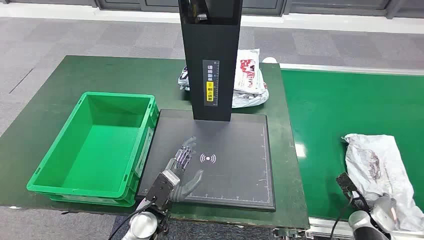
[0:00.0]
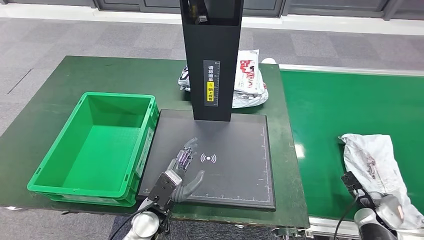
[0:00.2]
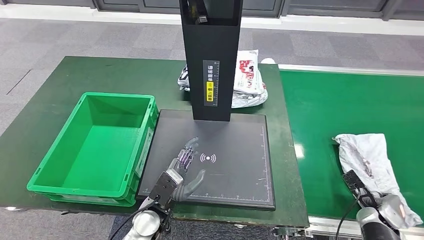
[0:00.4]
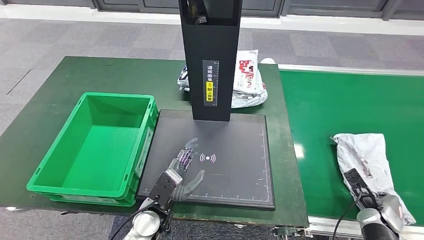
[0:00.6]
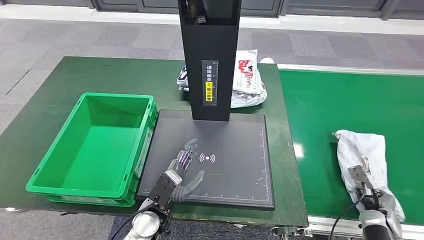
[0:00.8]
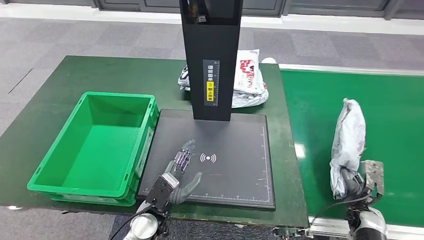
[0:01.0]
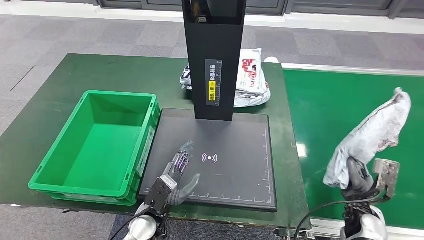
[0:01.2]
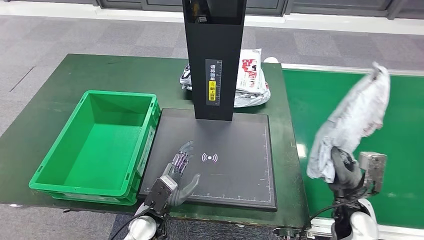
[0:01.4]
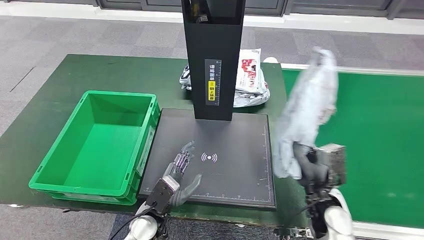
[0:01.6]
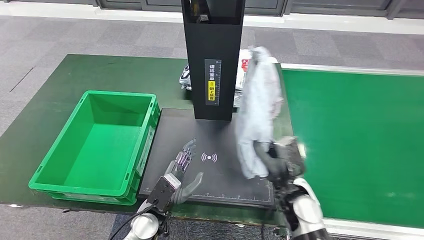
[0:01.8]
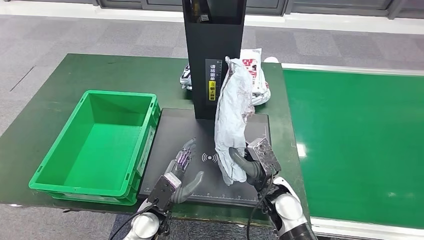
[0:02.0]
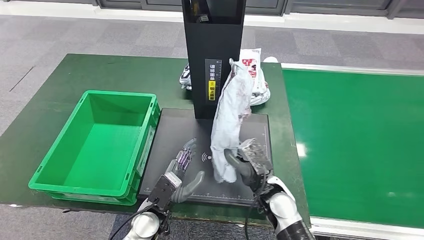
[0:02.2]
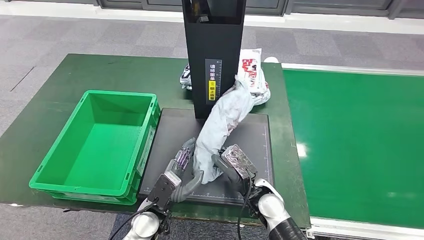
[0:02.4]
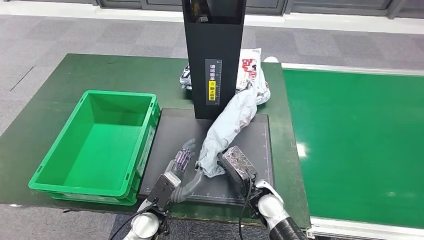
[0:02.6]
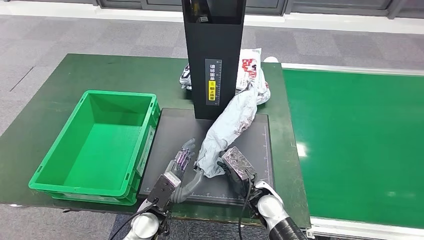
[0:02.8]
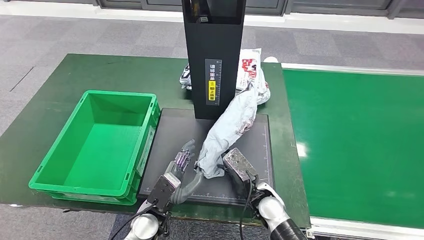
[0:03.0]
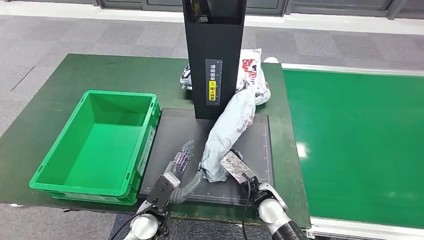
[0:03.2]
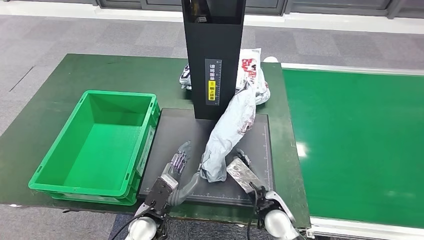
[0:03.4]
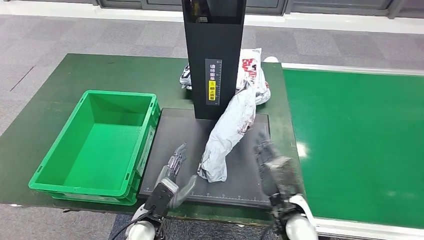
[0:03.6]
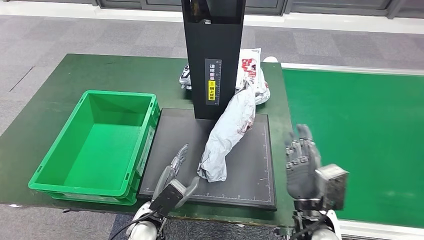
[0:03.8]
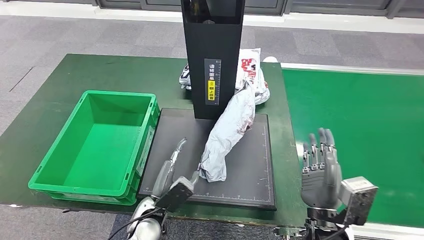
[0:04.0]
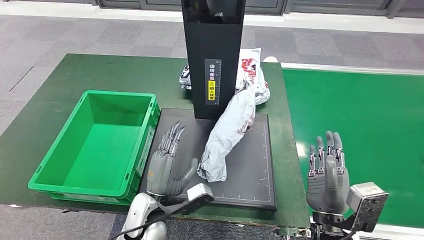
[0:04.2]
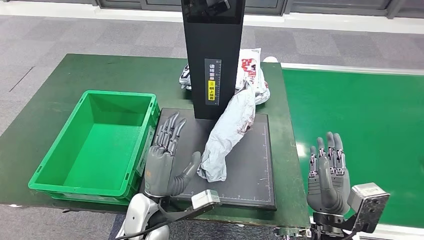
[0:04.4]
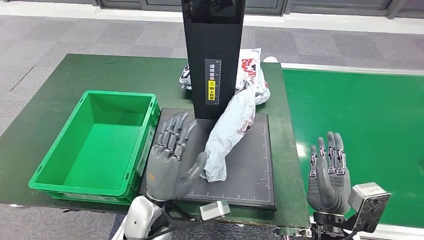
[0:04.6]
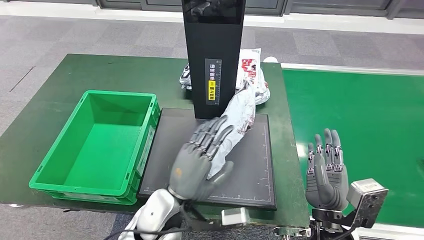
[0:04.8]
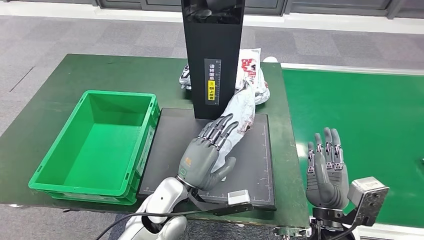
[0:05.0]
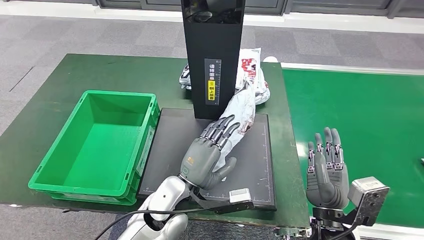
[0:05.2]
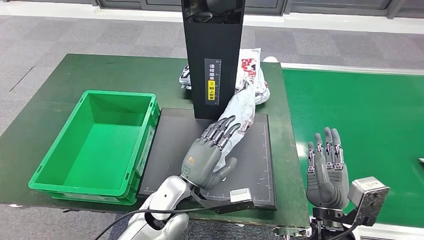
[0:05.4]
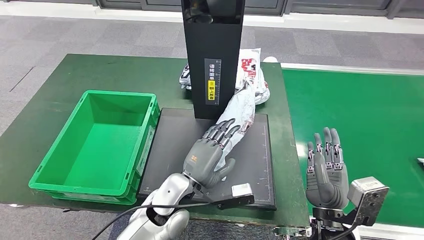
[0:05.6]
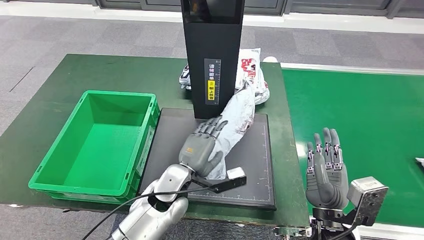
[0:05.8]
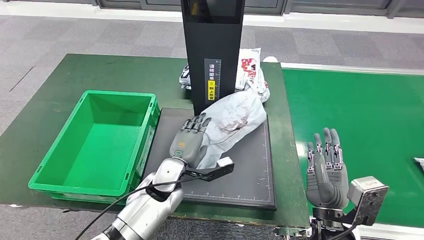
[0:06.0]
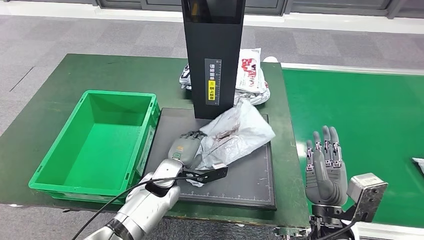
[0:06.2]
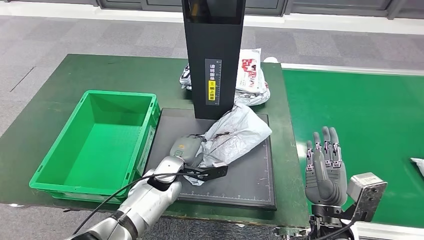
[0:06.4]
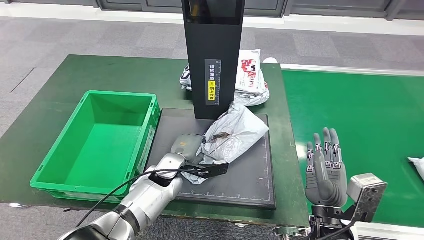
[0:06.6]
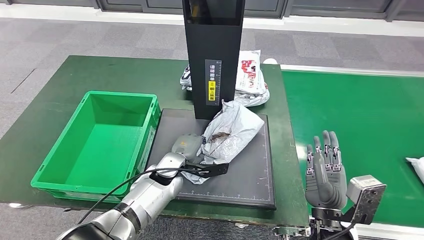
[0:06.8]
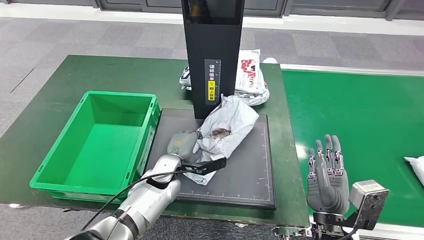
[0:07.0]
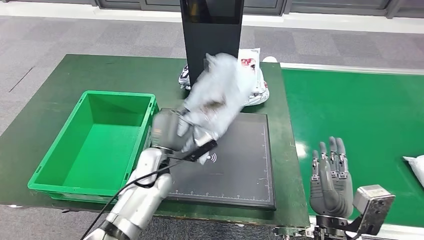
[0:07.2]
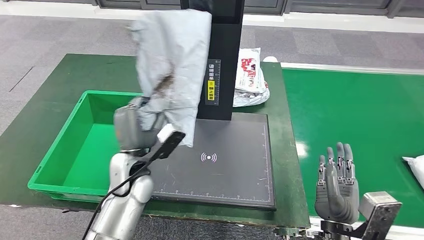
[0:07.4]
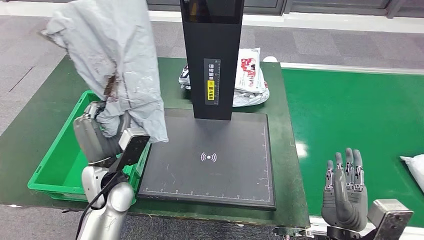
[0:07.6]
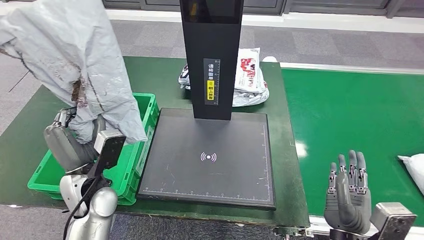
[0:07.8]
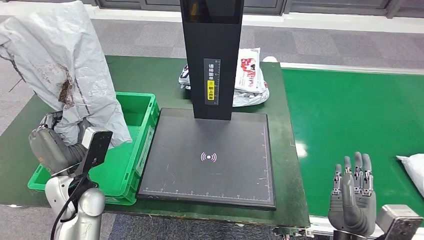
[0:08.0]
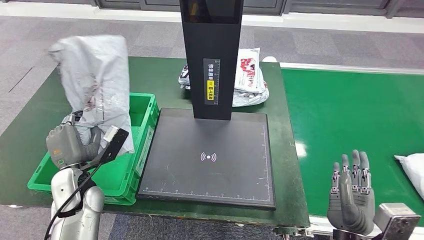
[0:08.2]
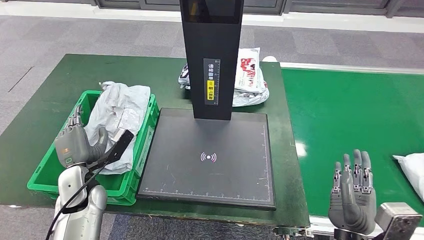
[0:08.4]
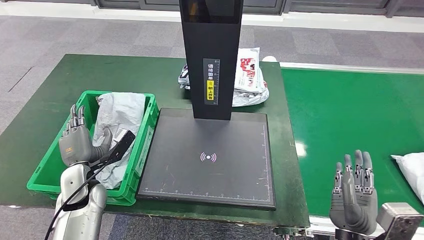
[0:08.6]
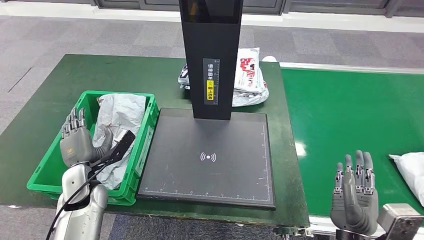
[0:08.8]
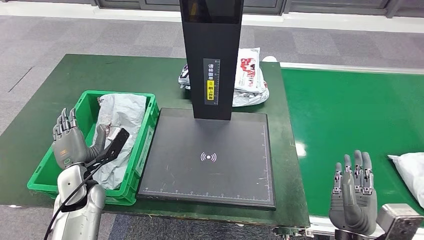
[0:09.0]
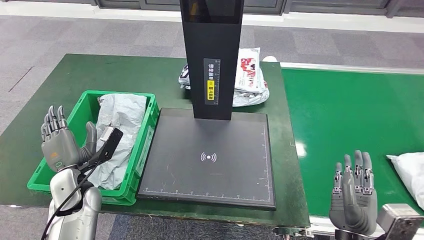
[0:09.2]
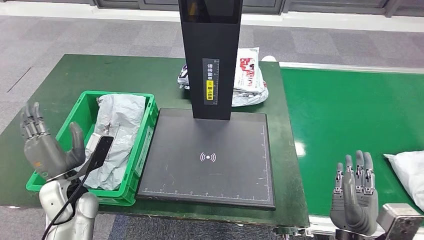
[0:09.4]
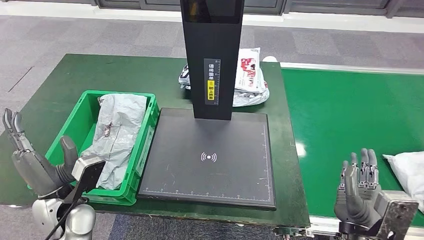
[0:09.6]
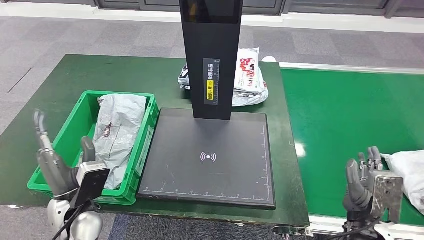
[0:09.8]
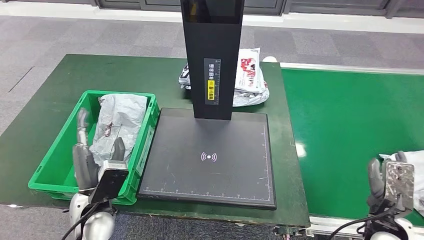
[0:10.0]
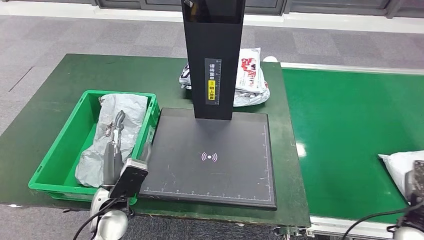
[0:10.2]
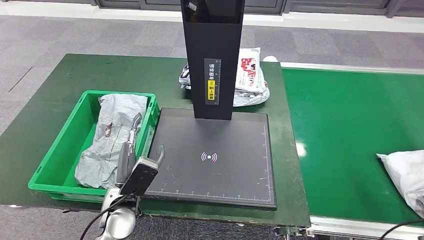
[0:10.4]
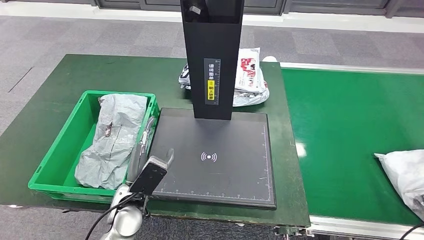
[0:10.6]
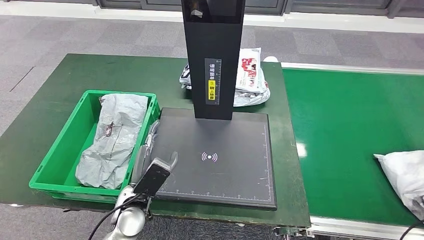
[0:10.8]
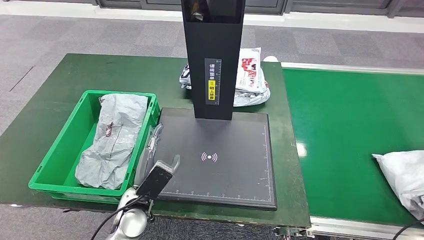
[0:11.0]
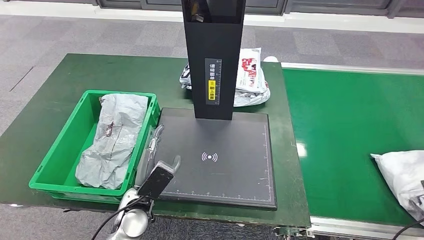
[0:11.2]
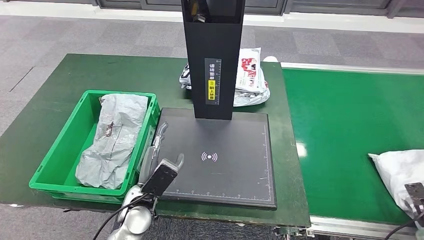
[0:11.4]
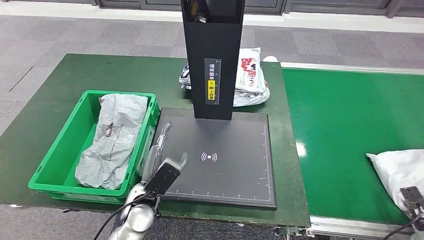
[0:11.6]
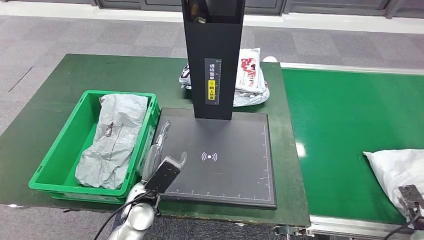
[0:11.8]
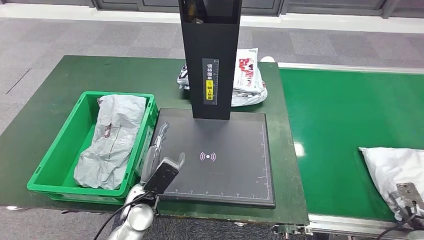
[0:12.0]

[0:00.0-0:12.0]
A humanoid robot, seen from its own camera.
Step, 0:00.0 to 0:01.2: Take the parcel off the conveyor belt.
Step, 0:01.4 to 0:03.8: Place the parcel onto the inbound machine.
Step, 0:04.0 to 0:07.4: Pick up the parcel from the inbound machine.
Step, 0:07.6 to 0:09.2: Put the parcel inside the courier box.
0:01.6 to 0:03.0: The right hand goes approximately 15 cm to the left.
0:03.0 to 0:04.4: The right hand goes some 15 cm to the right, upward and backward. Meanwhile the left hand heads upward, covering approximately 10 cm.
0:04.4 to 0:06.0: The left hand shifts about 10 cm forward.
0:09.0 to 0:10.4: The left hand travels to the right by about 10 cm. Meanwhile the right hand is displaced to the right by some 25 cm.
0:10.4 to 0:12.0: The right hand goes some 10 cm downward; the left hand changes place by about 5 cm.

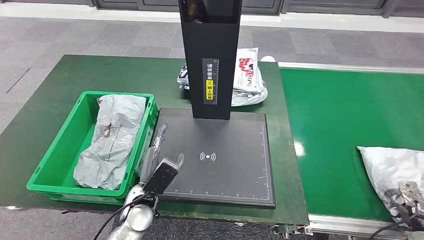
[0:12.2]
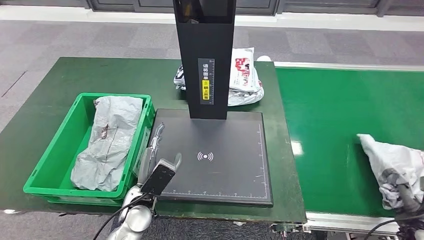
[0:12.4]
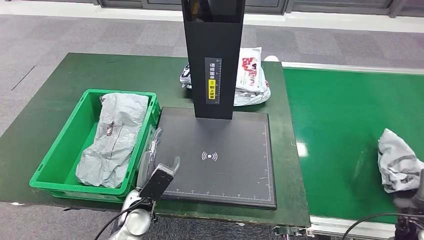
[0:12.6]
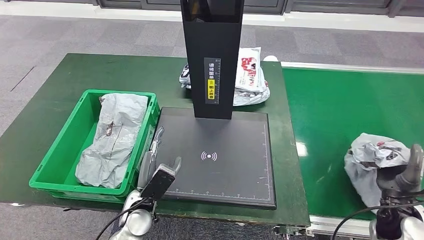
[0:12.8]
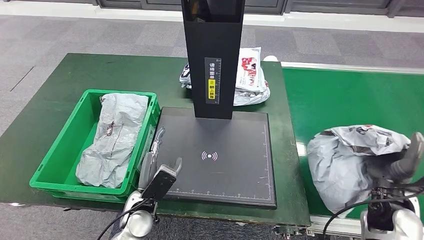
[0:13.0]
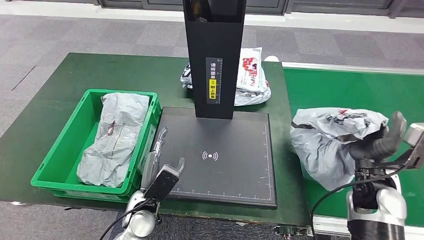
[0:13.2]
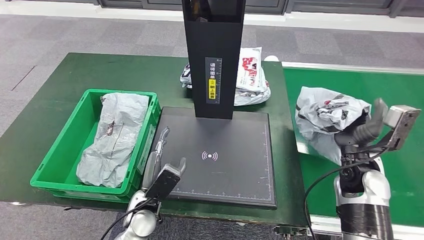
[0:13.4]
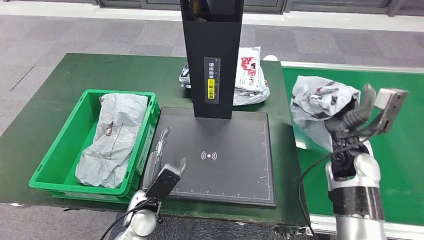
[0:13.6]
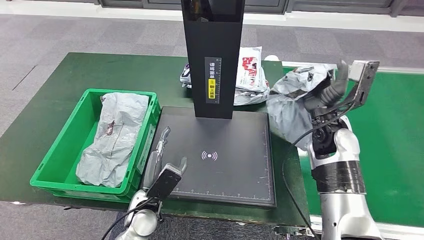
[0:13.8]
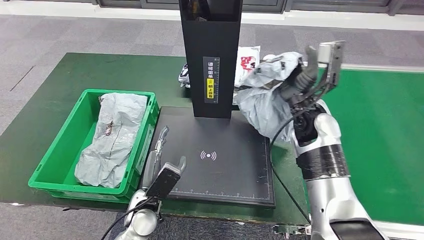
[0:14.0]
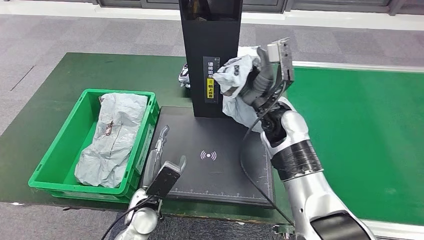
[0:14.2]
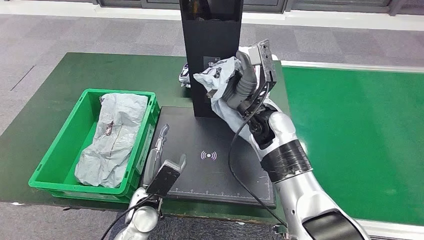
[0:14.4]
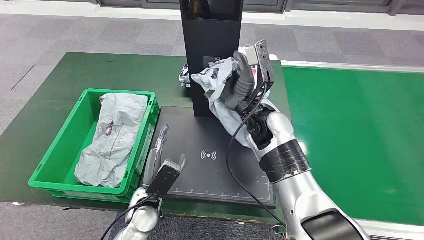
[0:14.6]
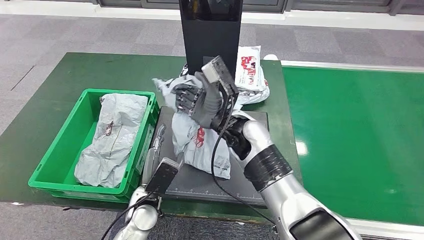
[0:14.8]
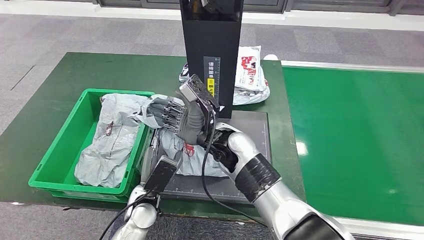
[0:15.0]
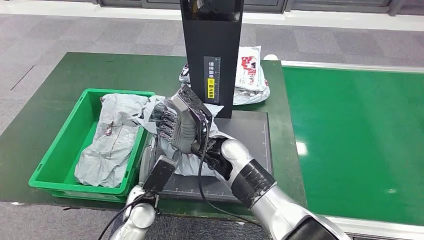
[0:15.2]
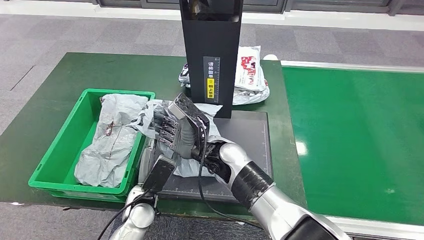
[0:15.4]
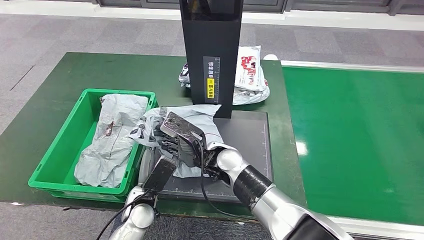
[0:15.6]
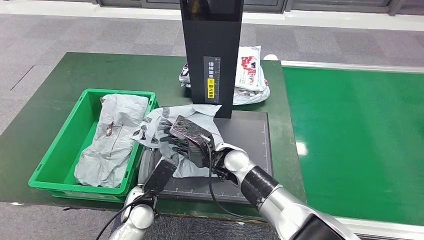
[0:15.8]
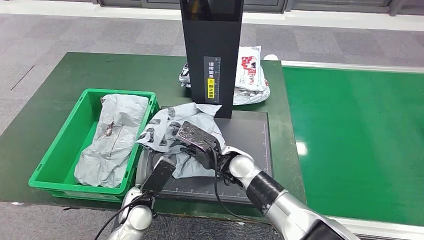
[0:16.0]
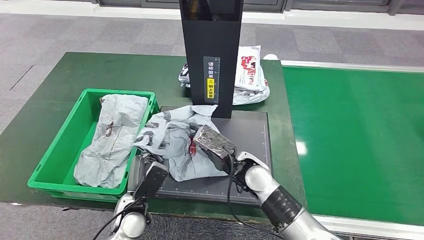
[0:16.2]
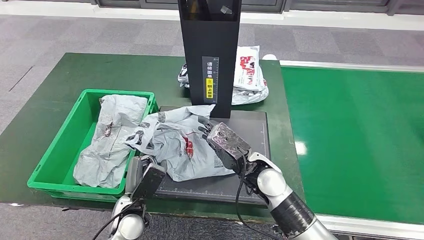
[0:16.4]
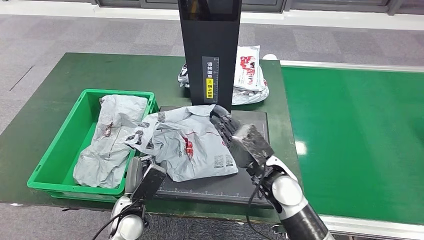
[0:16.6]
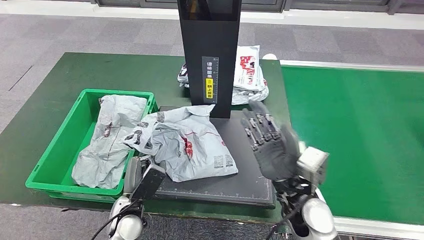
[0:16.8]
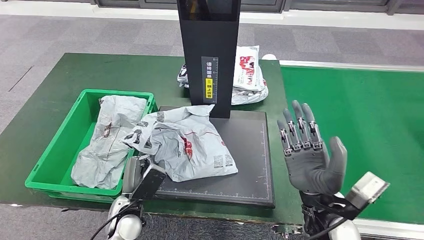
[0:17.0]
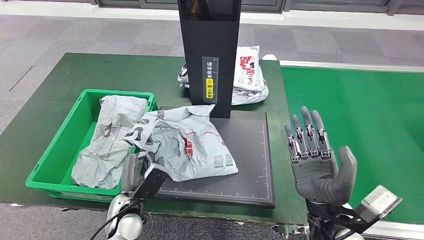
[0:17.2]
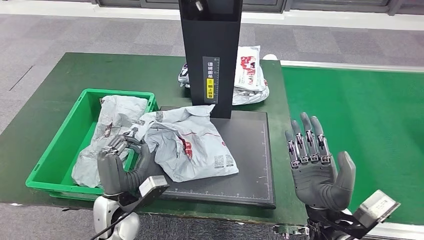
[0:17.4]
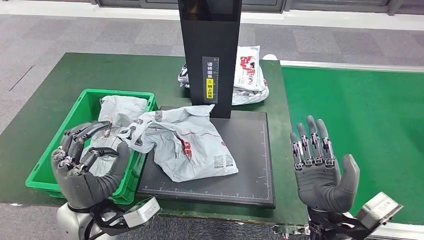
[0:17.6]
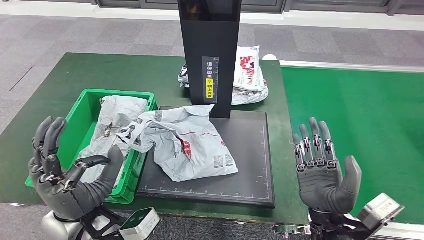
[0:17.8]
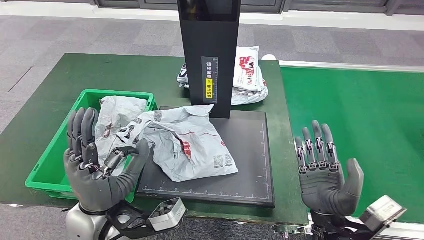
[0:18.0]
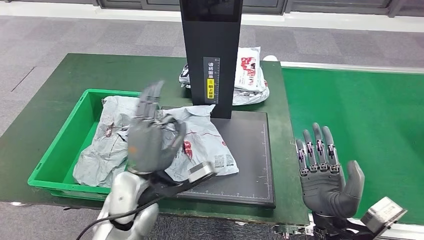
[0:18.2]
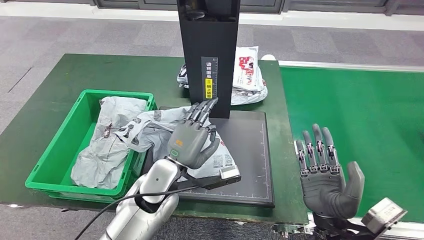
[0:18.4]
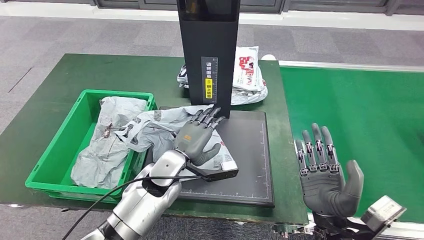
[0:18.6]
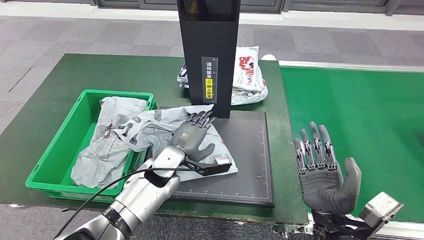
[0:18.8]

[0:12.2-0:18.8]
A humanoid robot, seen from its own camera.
Step, 0:13.6 to 0:16.6: Place the parcel onto the inbound machine.
0:17.2 to 0:18.8: The left hand travels forward, to the right and upward by roughly 15 cm.
